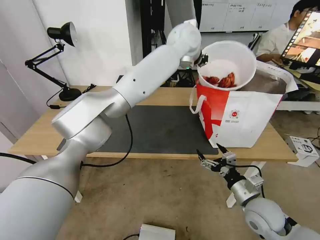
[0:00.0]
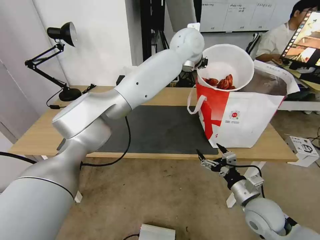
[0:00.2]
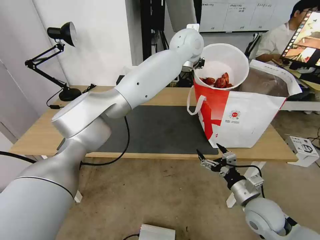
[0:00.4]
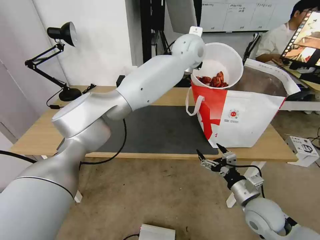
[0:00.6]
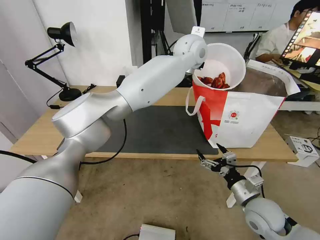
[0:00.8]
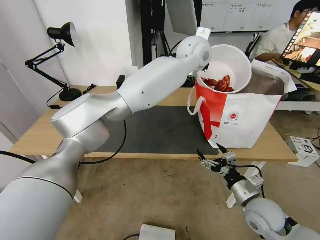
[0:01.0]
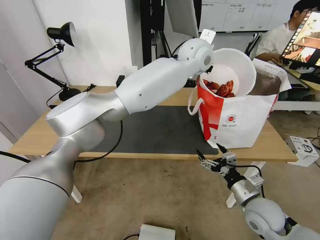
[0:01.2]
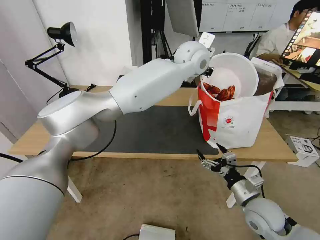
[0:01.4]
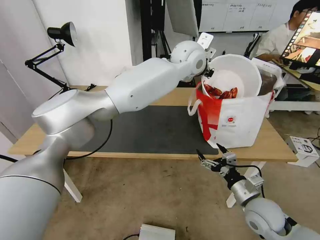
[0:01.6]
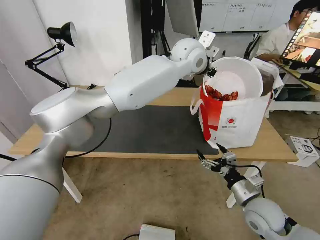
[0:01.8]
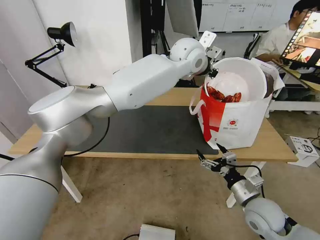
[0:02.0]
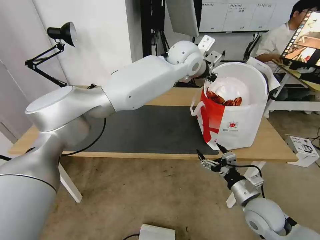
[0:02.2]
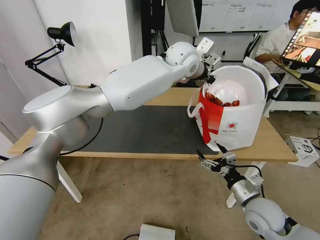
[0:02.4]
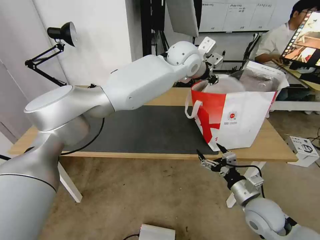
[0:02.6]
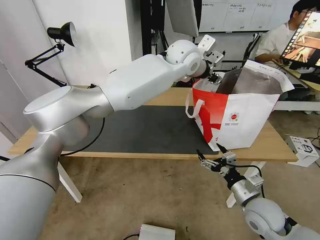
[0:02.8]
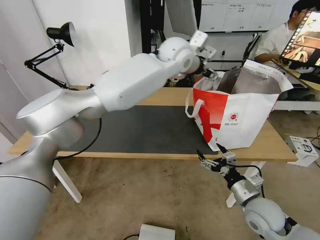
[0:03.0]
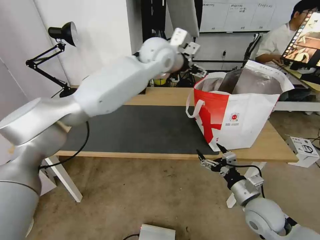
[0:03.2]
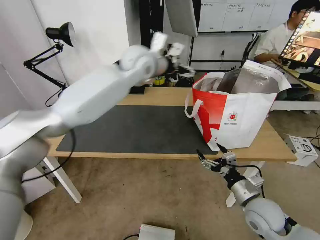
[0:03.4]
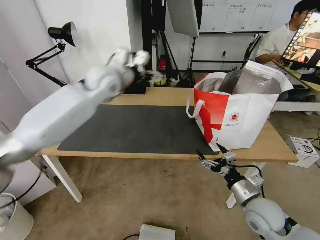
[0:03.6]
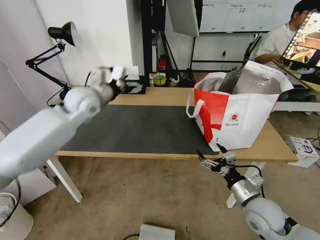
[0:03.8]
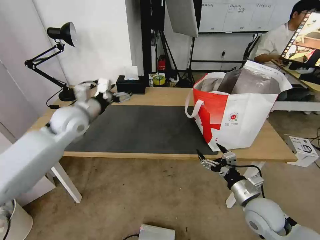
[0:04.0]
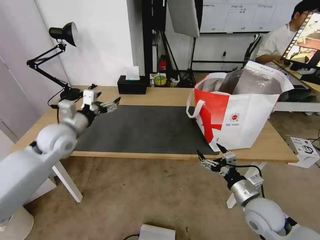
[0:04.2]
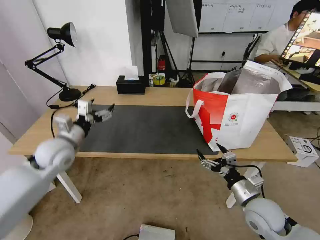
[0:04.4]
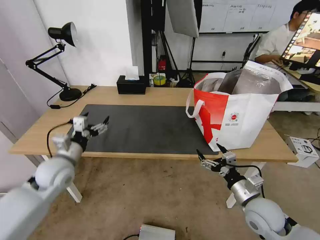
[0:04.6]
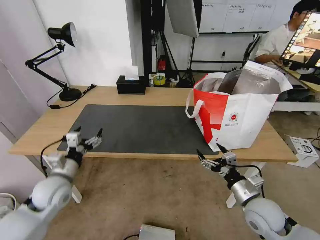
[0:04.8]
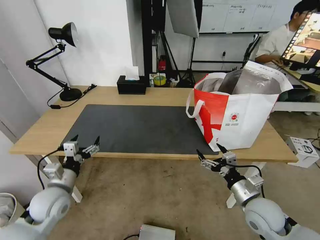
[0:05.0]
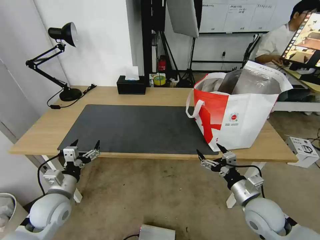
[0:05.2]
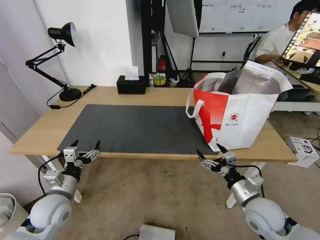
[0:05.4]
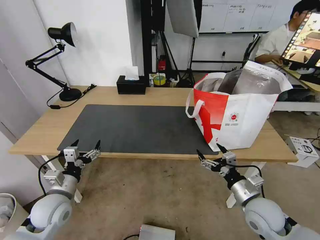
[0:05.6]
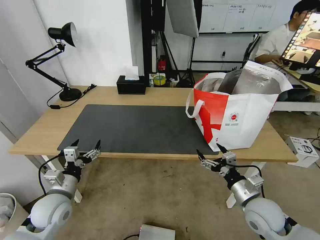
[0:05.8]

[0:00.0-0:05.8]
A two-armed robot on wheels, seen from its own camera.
Task of the whole recording: Pick up the trash from the table and place it into the takeout bag.
0:00.0 to 0:01.4: The left gripper changes place by roughly 5 cm.
0:01.4 to 0:02.8: The left gripper opens its fingers.
0:02.8 to 0:04.4: The left gripper moves to the left, downward and backward, roughly 50 cm, and opens its fingers.
0:04.4 to 0:05.8: The left gripper travels backward and downward by about 15 cm.

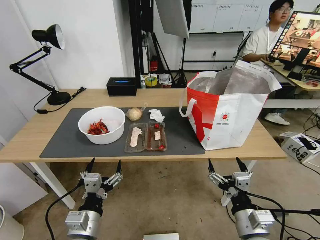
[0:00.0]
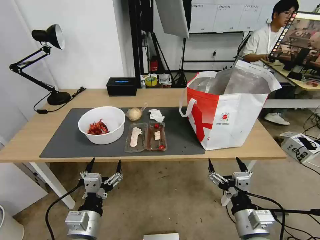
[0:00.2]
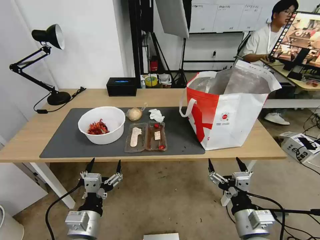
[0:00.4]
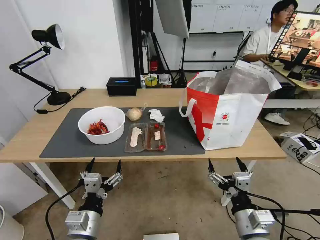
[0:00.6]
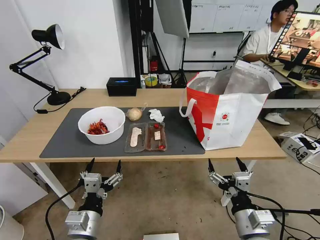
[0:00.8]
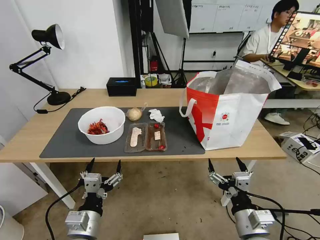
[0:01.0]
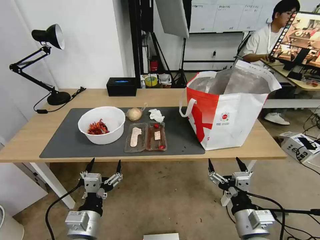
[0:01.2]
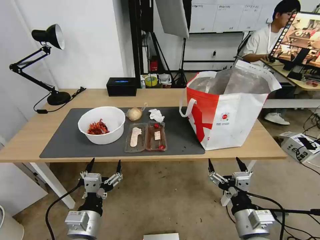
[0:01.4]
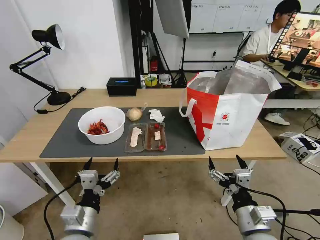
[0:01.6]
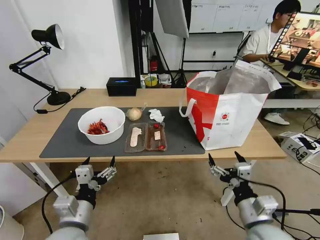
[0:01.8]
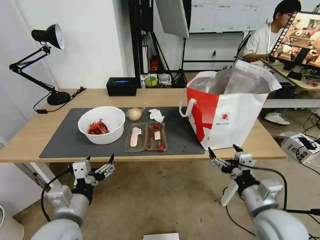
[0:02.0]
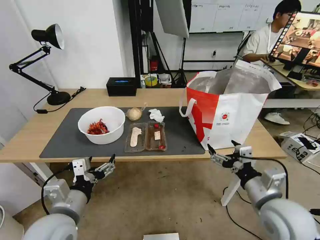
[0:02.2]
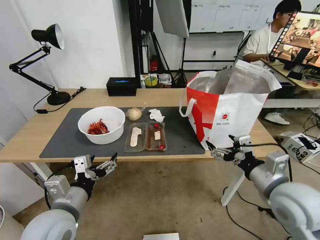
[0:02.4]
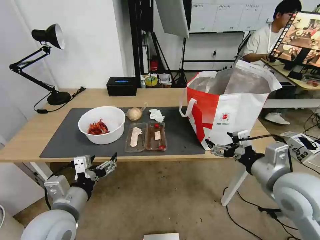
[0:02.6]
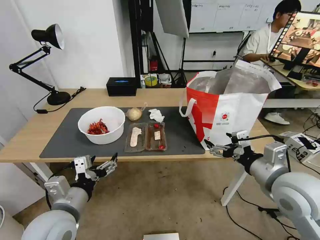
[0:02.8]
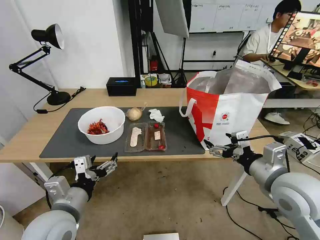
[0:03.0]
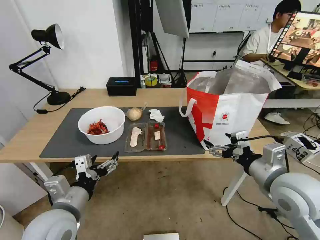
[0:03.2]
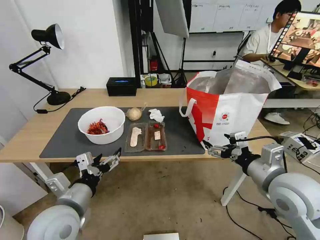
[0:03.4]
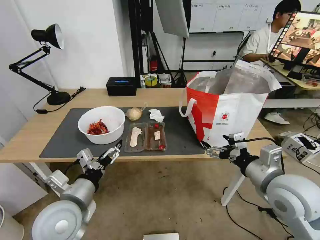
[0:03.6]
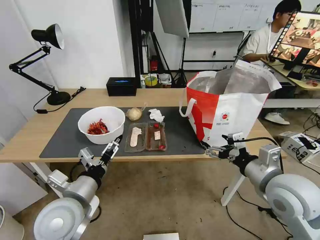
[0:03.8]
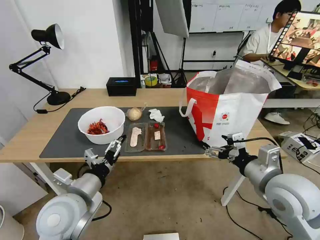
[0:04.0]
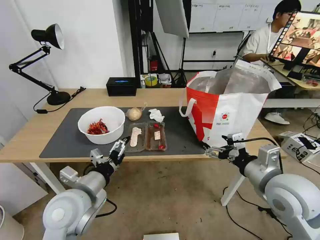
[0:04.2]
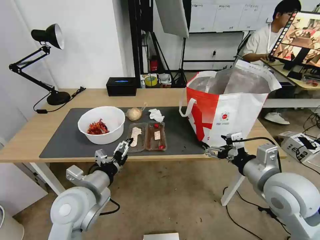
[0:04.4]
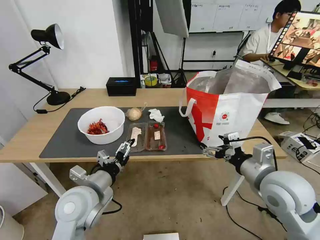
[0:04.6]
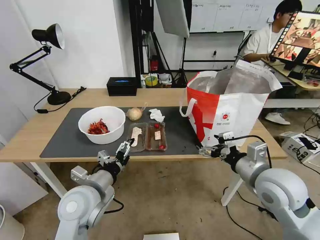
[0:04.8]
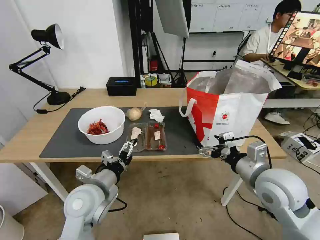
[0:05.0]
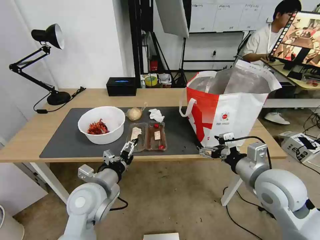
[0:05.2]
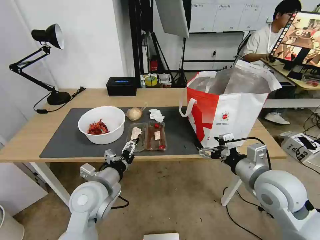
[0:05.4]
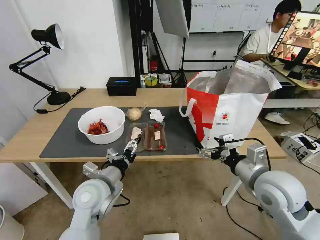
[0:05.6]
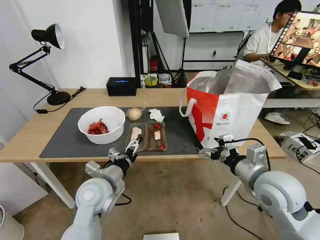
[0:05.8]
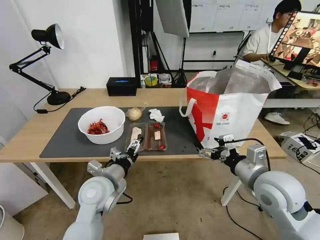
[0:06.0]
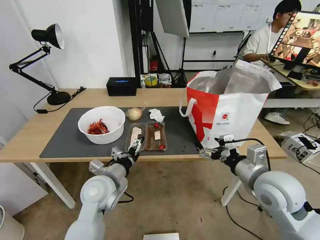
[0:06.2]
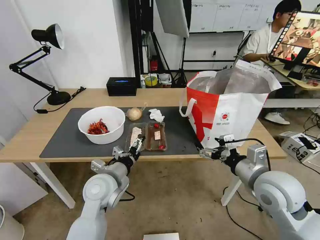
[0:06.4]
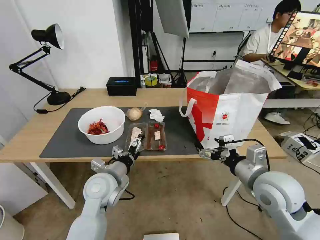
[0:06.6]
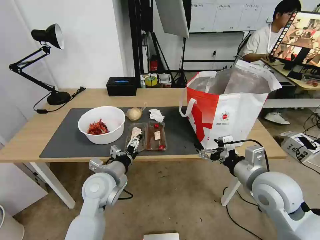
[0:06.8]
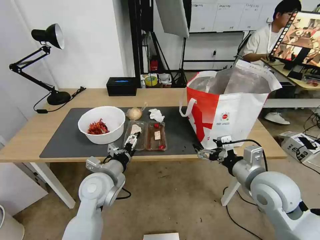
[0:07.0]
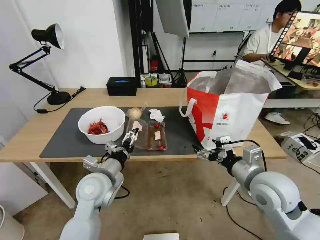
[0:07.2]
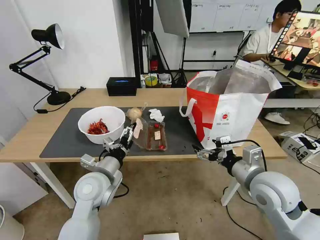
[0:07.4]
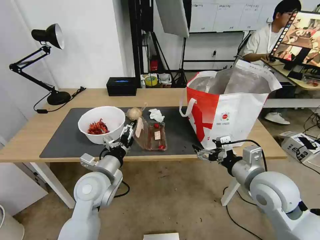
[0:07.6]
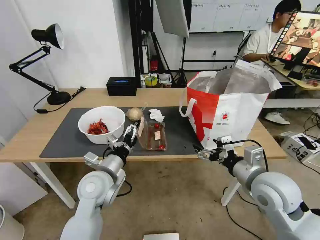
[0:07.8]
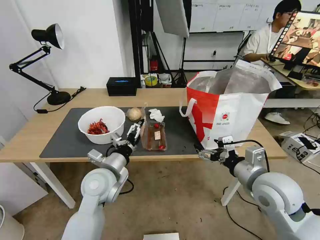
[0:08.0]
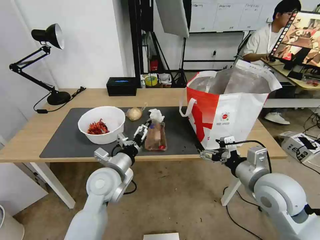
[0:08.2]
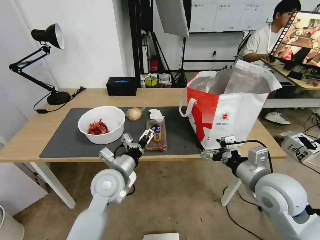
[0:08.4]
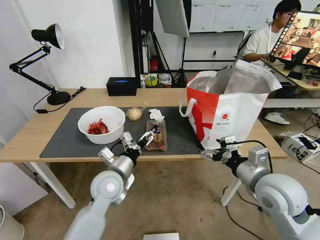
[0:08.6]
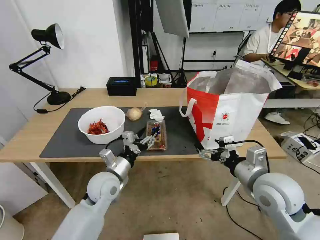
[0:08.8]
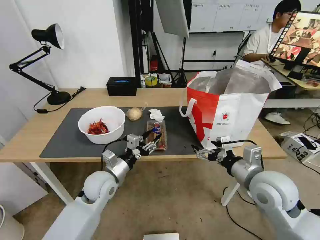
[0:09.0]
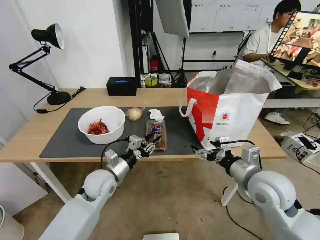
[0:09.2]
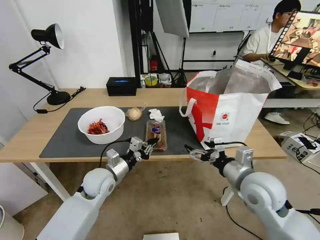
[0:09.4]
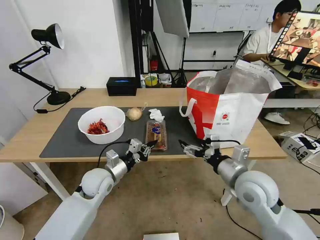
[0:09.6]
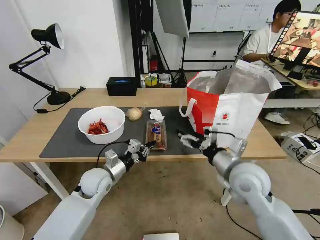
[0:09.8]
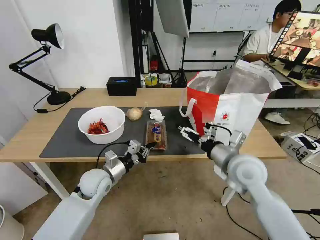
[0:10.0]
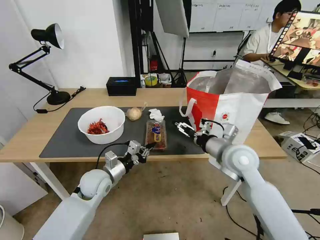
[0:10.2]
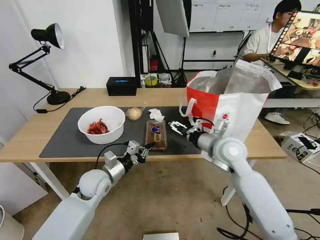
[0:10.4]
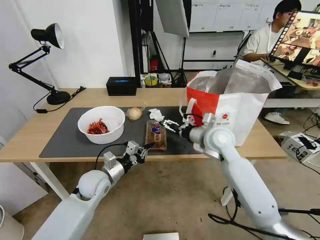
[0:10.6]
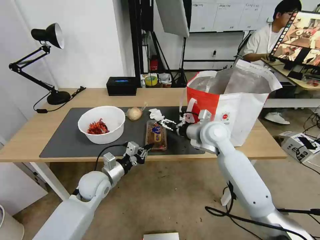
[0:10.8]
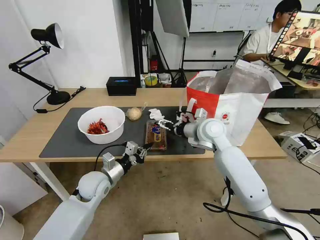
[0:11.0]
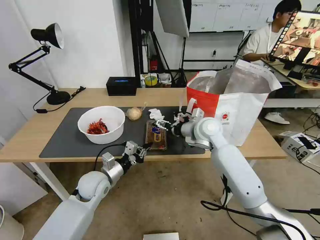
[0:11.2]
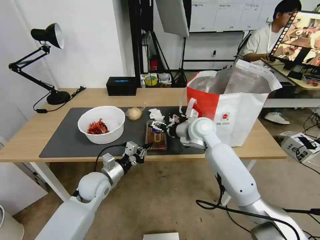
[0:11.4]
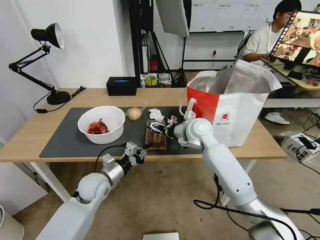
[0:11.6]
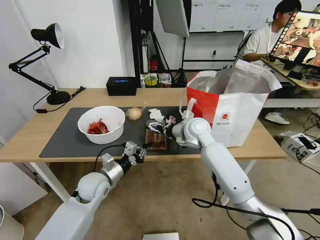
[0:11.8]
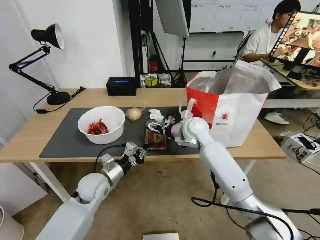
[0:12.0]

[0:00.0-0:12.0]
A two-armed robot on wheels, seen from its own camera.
Task of the whole recording: Pick up the trash from the table and place it into the takeout bag.
0:01.6 to 0:03.0: The right gripper shifts some 15 cm upward, forward and to the right; the left gripper travels upward by some 5 cm.
0:03.0 to 0:04.4: The left gripper is displaced forward by some 5 cm.
0:04.4 to 0:06.0: The left gripper changes place by some 5 cm.
0:06.0 to 0:07.6: The grippers stay close to where they were, moving slightly.
0:07.6 to 0:09.0: The left gripper moves downward, approximately 5 cm, and closes up.
0:09.0 to 0:10.4: The left gripper closes its fingers. The right gripper shifts about 15 cm forward and to the left.
0:10.4 to 0:12.0: The right gripper heads forward and to the left, covering about 15 cm.

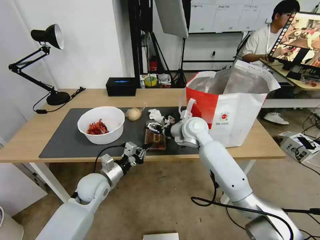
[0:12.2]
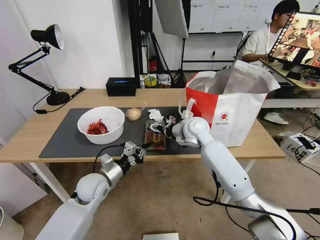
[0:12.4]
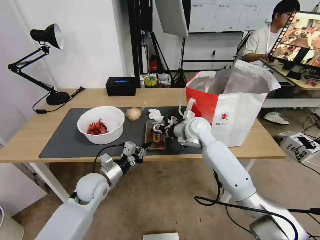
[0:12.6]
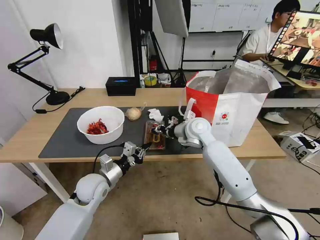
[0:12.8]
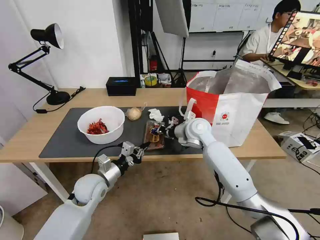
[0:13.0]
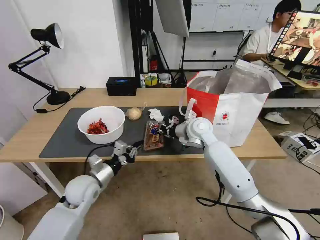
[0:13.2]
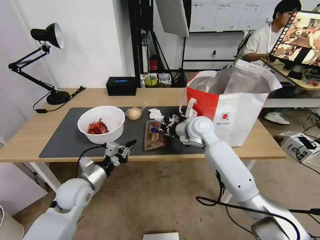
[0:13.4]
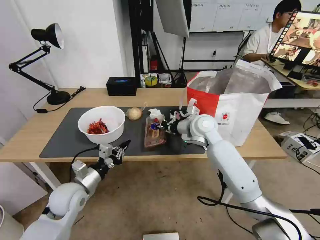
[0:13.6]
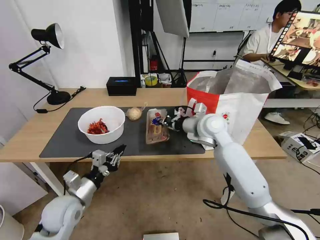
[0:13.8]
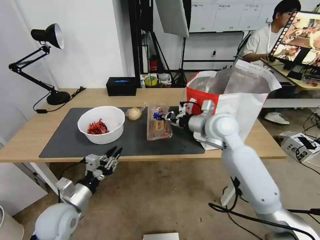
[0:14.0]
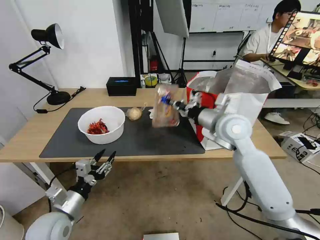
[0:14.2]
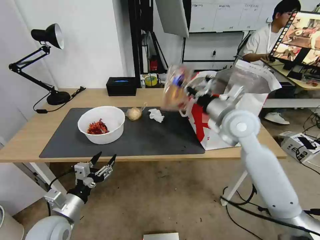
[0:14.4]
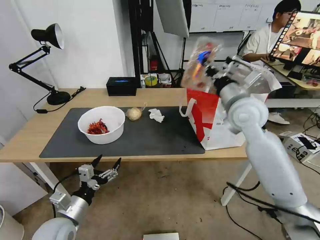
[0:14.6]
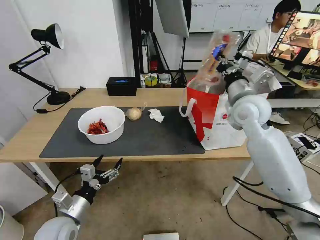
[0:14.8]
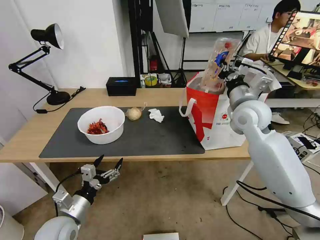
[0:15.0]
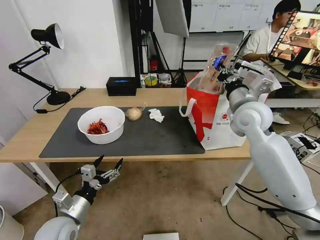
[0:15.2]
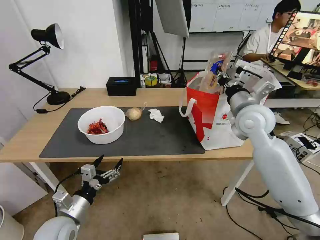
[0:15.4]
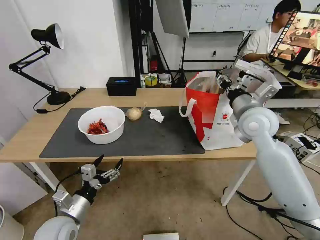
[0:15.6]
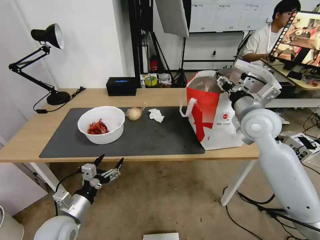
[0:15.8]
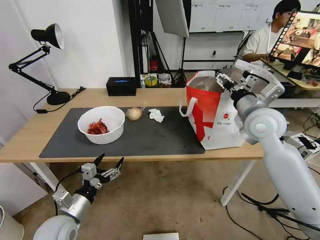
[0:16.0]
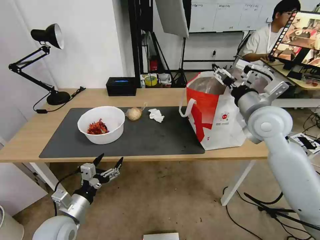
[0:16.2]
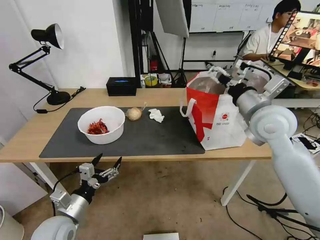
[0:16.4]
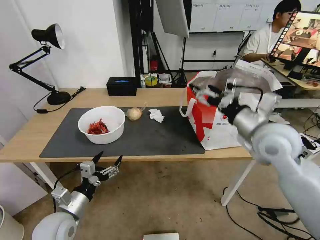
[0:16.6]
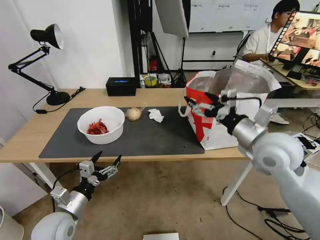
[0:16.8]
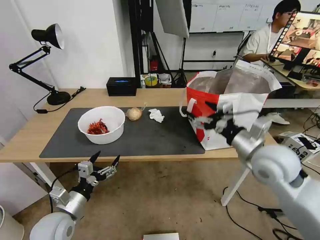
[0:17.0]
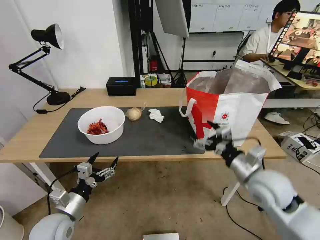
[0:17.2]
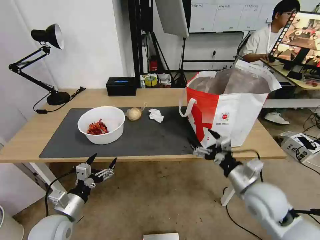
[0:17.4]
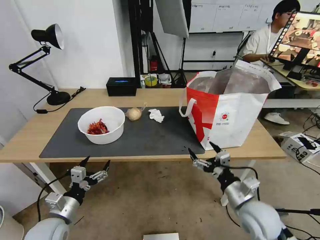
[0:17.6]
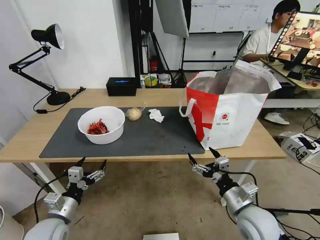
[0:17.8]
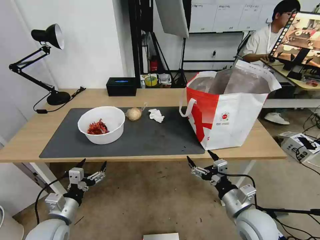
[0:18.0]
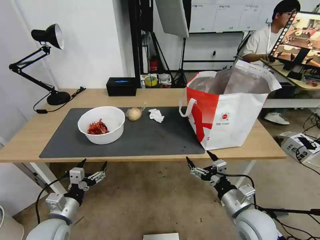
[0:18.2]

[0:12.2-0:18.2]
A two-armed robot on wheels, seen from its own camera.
Task of the whole recording: Pick up the trash from the table and place it into the takeout bag.
0:12.2 to 0:13.8: The right gripper changes place by roughly 5 cm, and closes its fingers. The left gripper heads backward and to the left, covering about 10 cm.
0:13.8 to 0:15.2: The right gripper heads to the right and upward, covering about 10 cm. Meanwhile the left gripper travels backward by approximately 5 cm, and opens its fingers.
0:15.2 to 0:16.6: The right gripper shifts some 10 cm backward, and opens up.
0:16.6 to 0:18.2: The right gripper travels downward and backward by approximately 25 cm.
